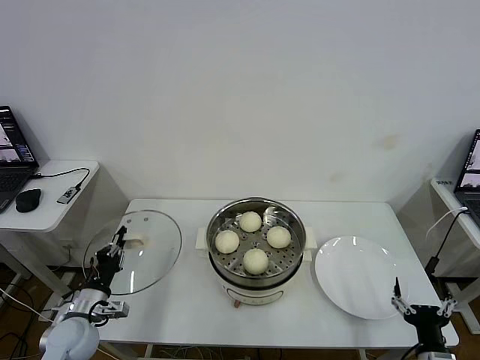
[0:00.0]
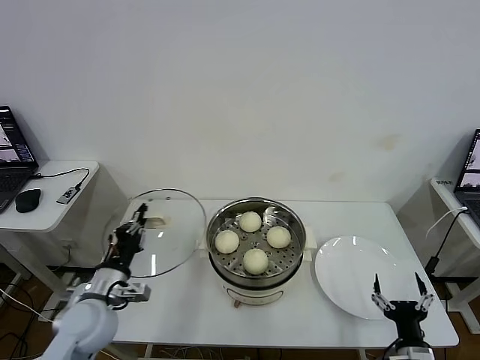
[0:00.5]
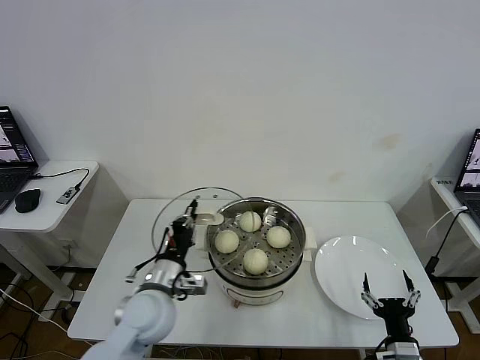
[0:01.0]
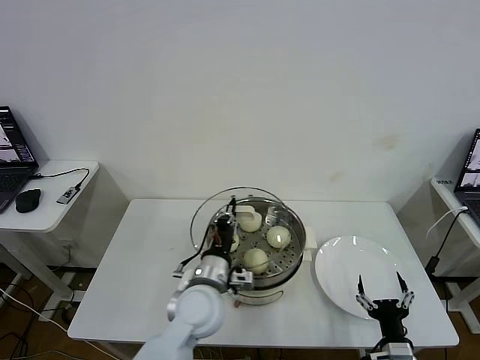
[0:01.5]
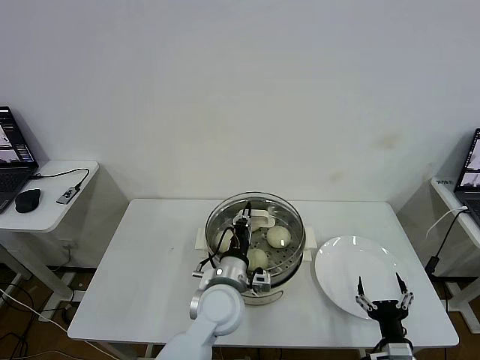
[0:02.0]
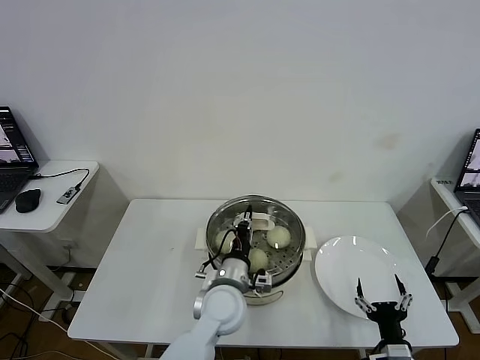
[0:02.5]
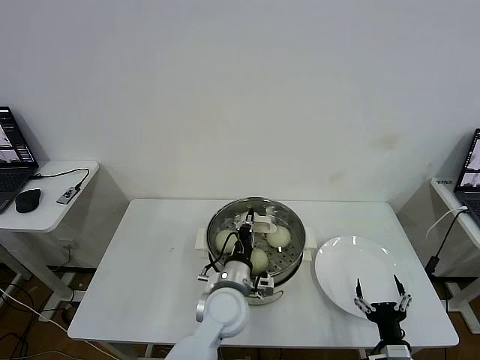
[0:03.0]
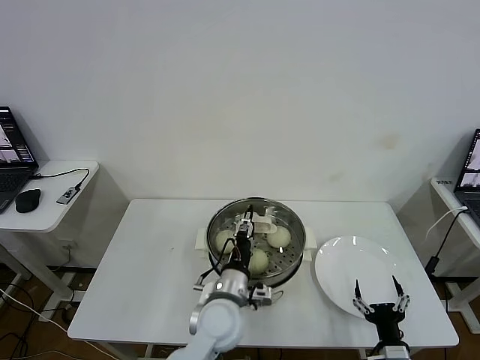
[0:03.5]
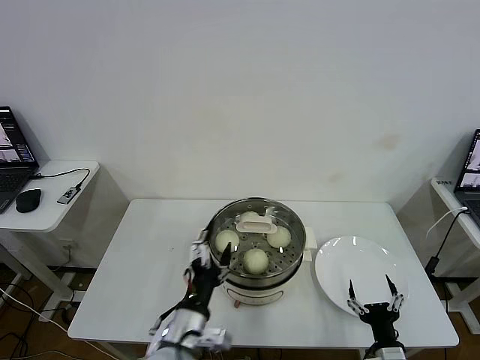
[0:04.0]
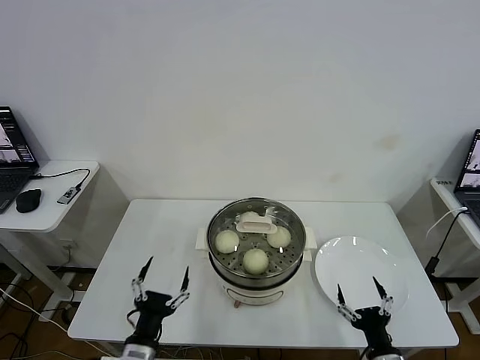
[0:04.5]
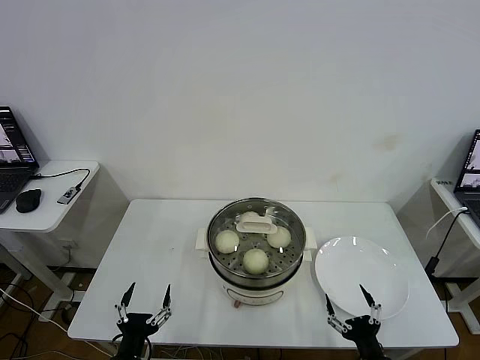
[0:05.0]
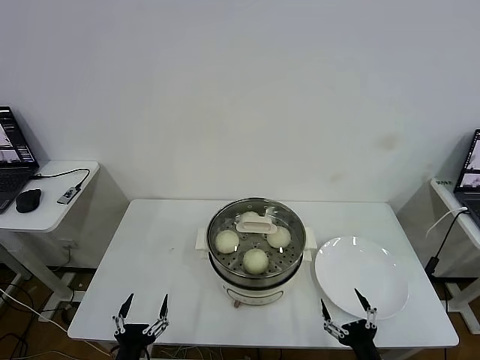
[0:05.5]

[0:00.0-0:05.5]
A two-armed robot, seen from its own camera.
Task of the whole recording: take steamed baozi put them in steamer then cover it.
Step, 0:00.0 to 0:03.5: Place the pot lid on the steamer with left gripper.
0:00.0 to 0:02.0: The right gripper moves to the left, about 5 cm. Meanwhile the left gripper goes some 30 cm to the right.
0:02.0 to 0:03.5: The left gripper opens.
0:03.5 to 0:05.5: The left gripper shifts roughly 30 cm to the left and backward, and opens up.
